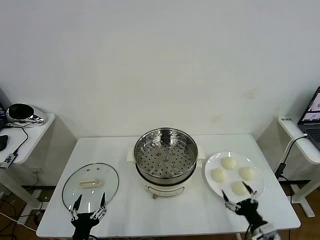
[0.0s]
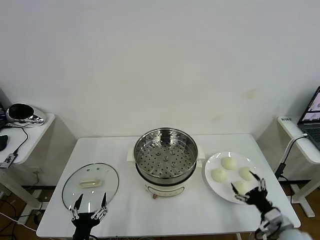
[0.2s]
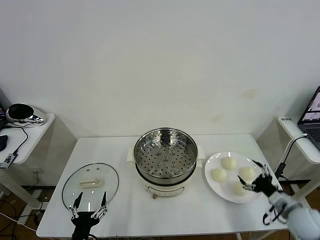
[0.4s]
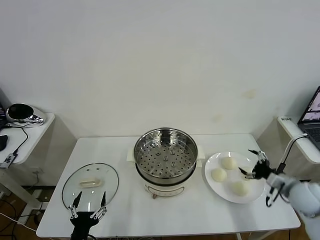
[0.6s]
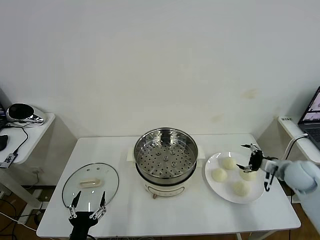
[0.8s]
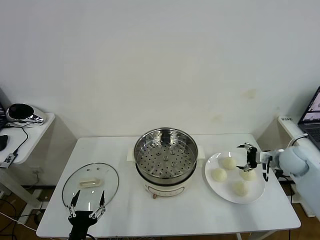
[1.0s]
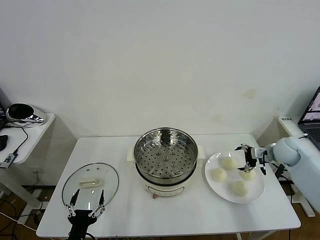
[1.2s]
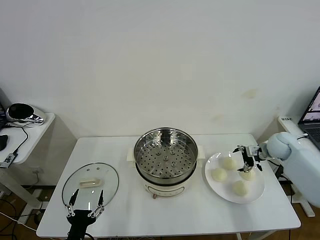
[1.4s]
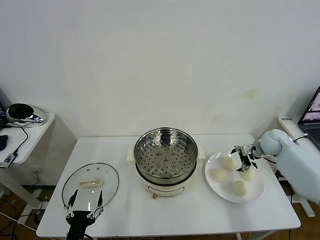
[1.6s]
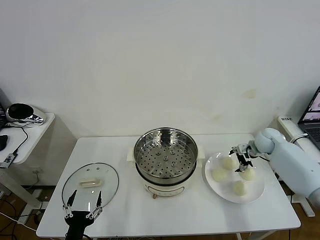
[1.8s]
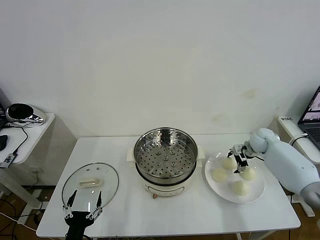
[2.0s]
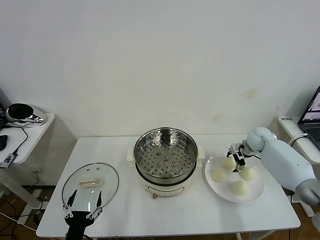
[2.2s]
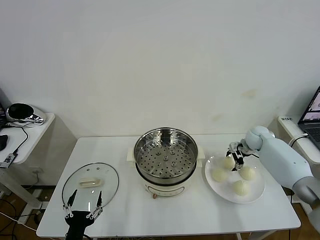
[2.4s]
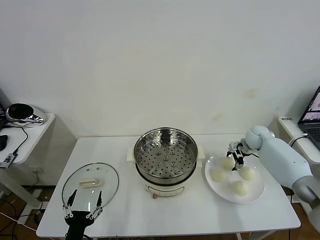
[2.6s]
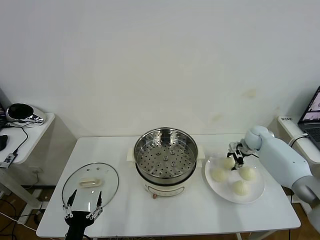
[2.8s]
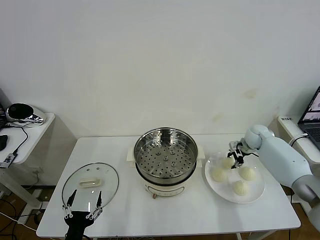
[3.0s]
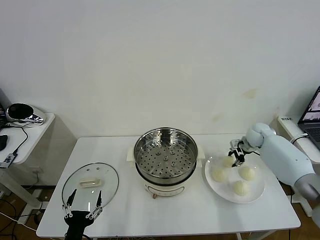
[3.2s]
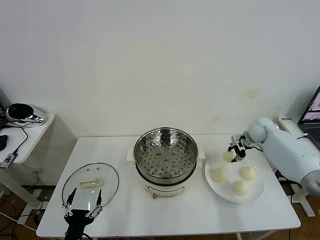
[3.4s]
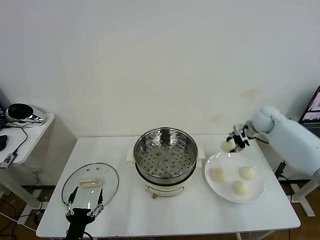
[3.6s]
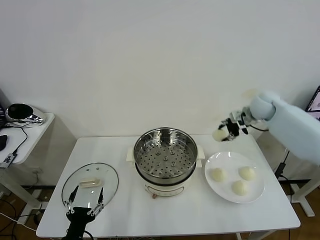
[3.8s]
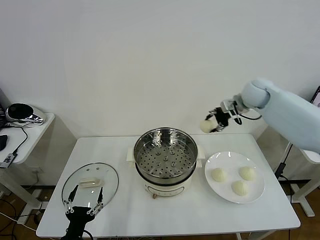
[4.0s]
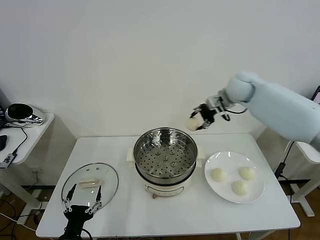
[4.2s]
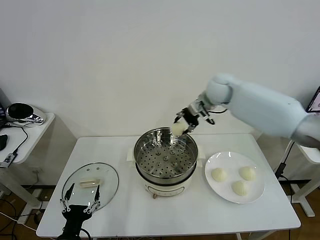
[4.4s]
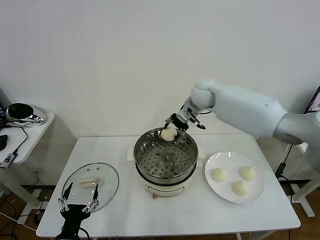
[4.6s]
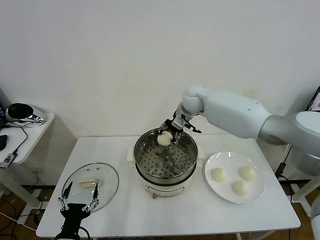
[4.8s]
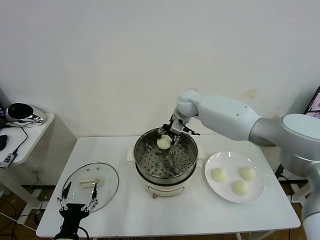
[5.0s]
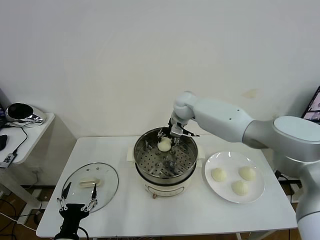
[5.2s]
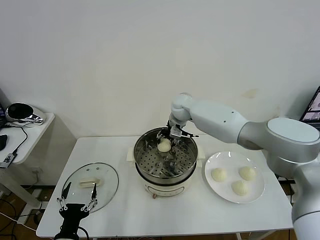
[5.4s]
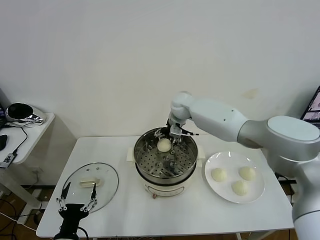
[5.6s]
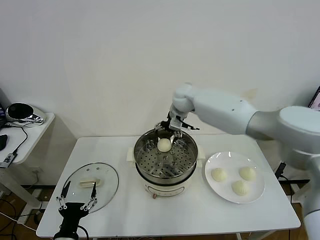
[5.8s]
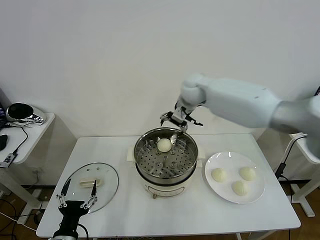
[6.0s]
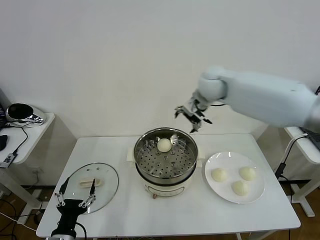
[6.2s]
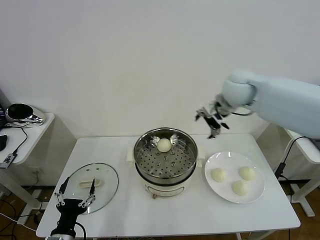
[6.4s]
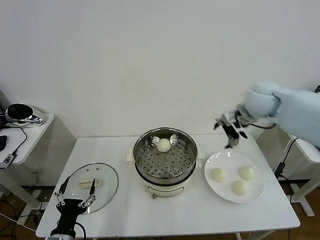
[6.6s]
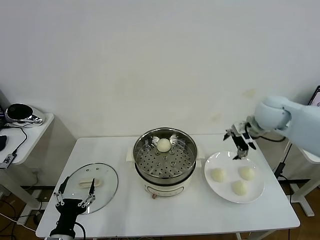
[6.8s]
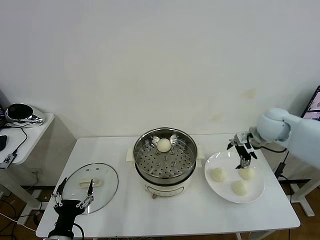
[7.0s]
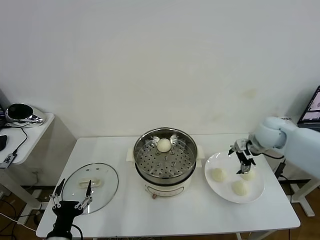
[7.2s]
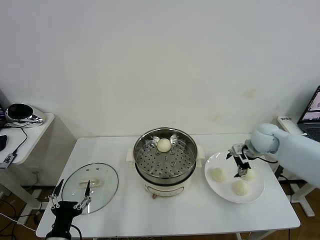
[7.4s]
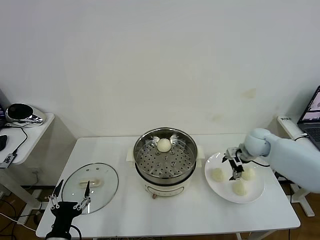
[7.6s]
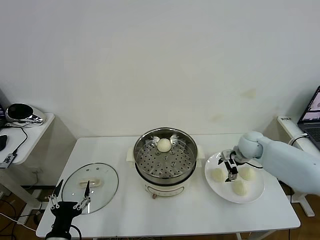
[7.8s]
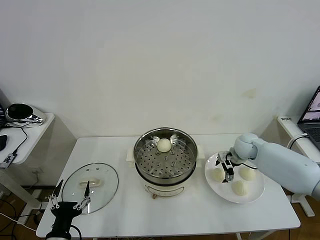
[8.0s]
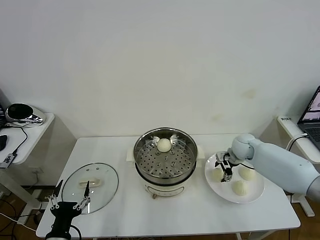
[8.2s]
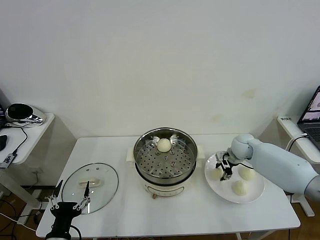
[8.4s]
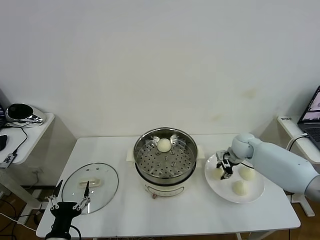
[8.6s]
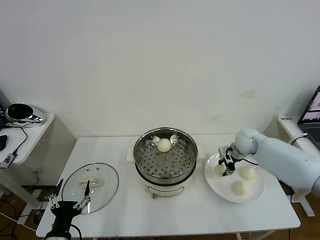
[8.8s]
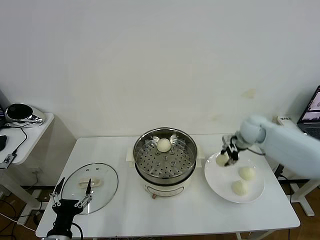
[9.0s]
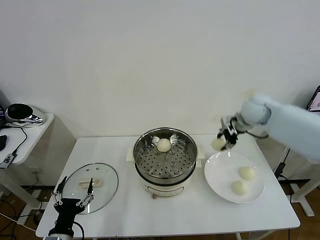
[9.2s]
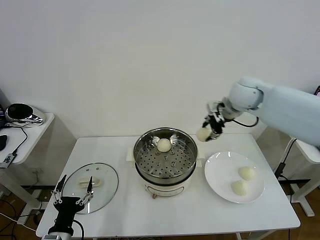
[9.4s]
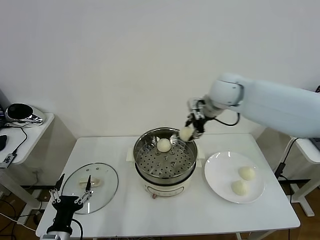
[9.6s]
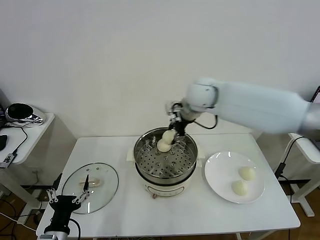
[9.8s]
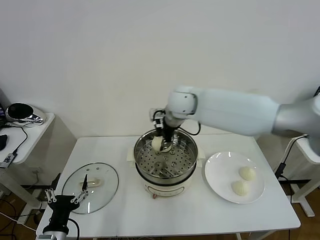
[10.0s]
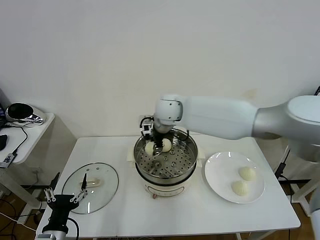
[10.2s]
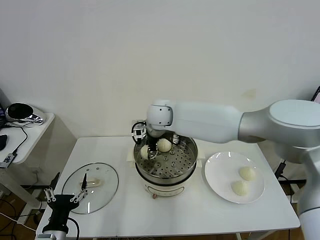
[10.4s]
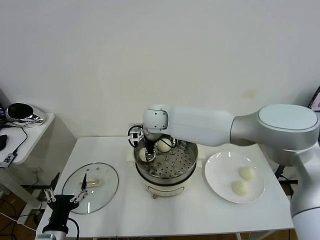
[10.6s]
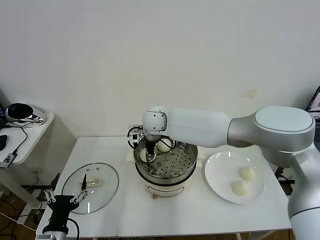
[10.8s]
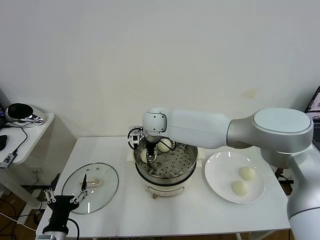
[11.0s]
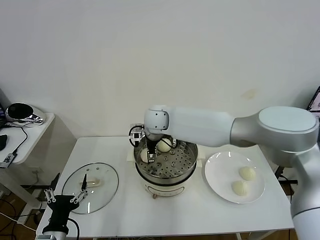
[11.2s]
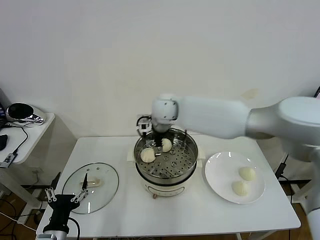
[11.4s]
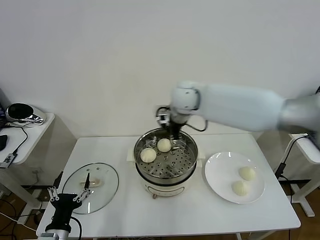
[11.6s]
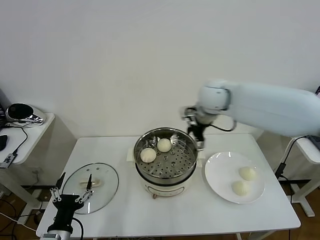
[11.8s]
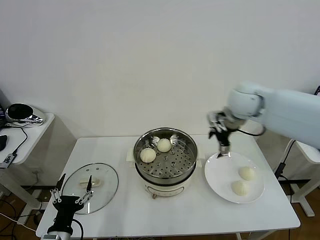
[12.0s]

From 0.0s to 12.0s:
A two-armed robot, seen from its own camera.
Task of the whole recording: take steamed baozi put them in steamer then cover it.
Step, from 0.0s to 2.8s: Grasp the baozi in the plate with right gripper.
Step, from 3.2s to 5.6s: Place the baozi on the steamer with right gripper.
Step, from 5.8s to 8.6s: Grasp the baozi in the plate with right gripper.
Step, from 8.8s to 11.2s: Place the baozi on the steamer with right gripper.
From 1.6s to 3.0s: The right gripper closes up.
From 3.0s to 4.4s: The right gripper heads to the left and upward, covering about 30 cm.
From 4.4s to 6.0s: The right gripper moves some 10 cm downward and comes back, and opens up.
From 6.0s to 7.6s: The right gripper travels downward and to the right by about 30 cm.
From 7.6s to 9.0s: The right gripper goes approximately 10 cm upward, and closes up.
From 9.0s to 10.4s: The right gripper moves to the left, some 35 cm.
From 10.4s to 12.0s: The right gripper moves to the right, approximately 25 cm, and opens up.

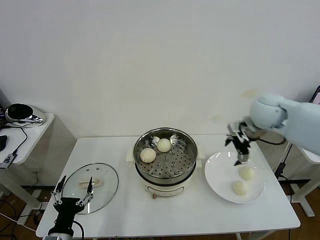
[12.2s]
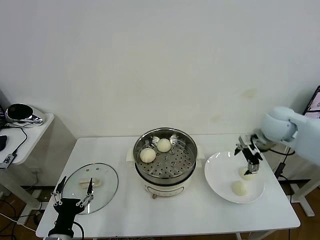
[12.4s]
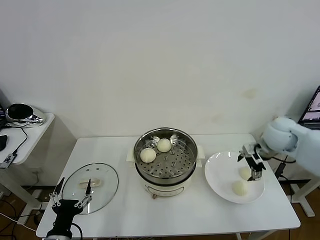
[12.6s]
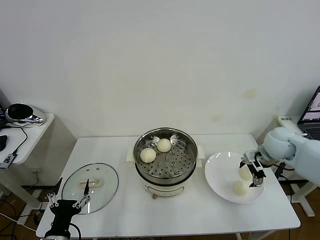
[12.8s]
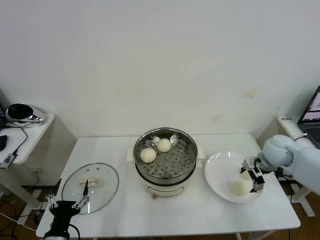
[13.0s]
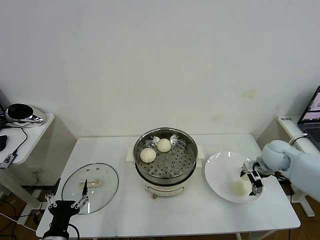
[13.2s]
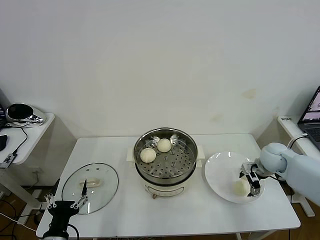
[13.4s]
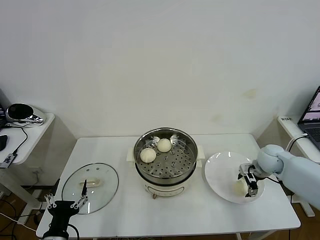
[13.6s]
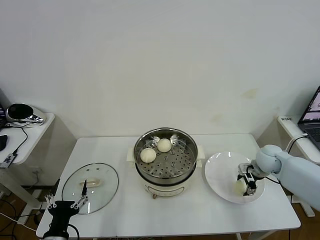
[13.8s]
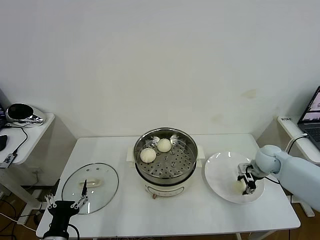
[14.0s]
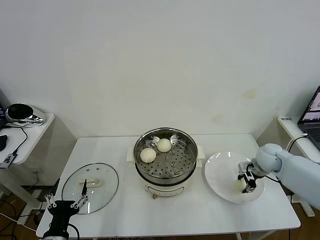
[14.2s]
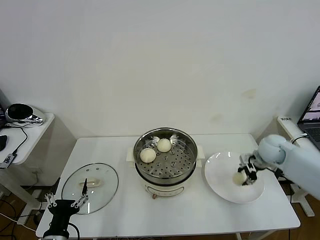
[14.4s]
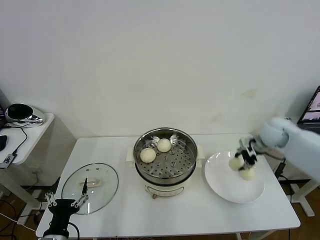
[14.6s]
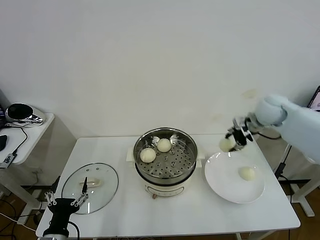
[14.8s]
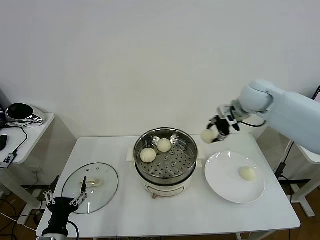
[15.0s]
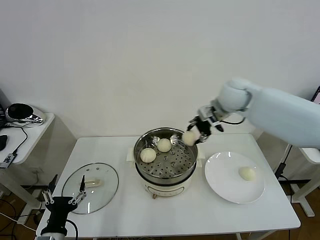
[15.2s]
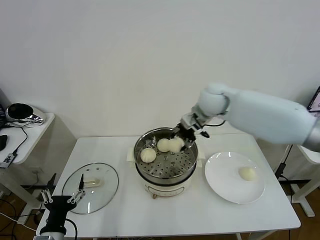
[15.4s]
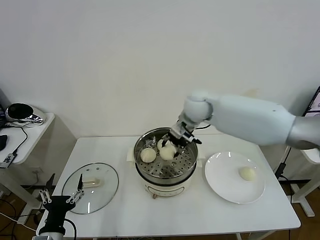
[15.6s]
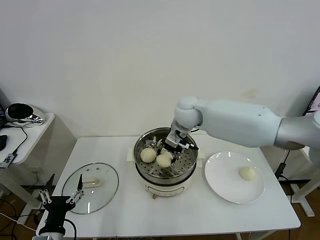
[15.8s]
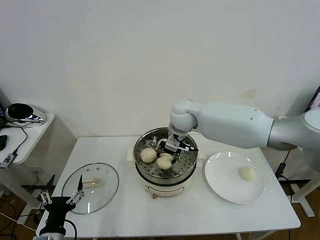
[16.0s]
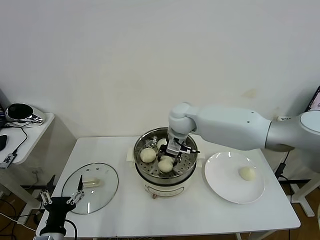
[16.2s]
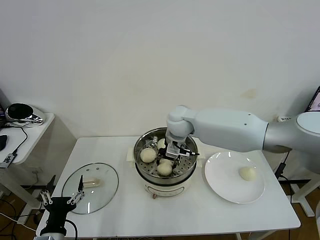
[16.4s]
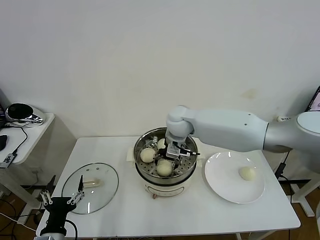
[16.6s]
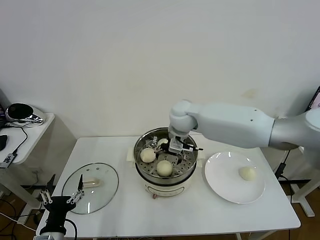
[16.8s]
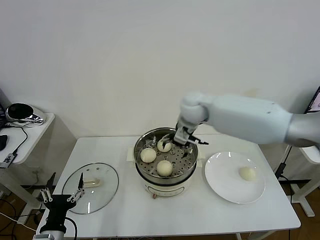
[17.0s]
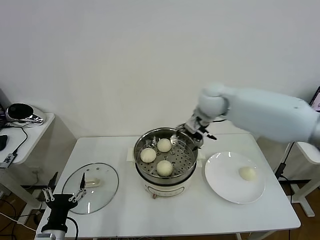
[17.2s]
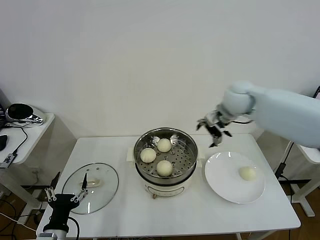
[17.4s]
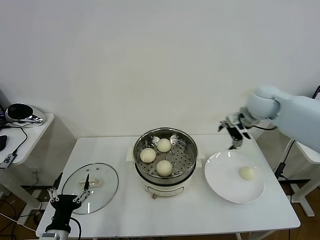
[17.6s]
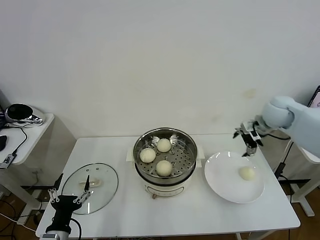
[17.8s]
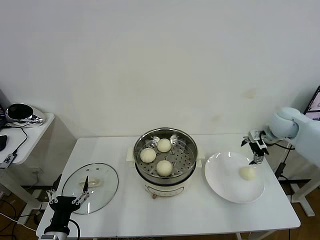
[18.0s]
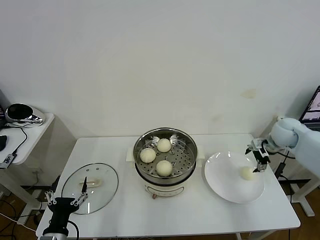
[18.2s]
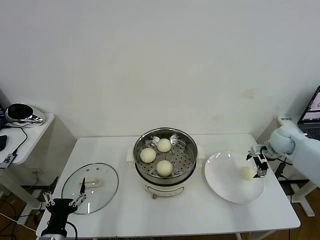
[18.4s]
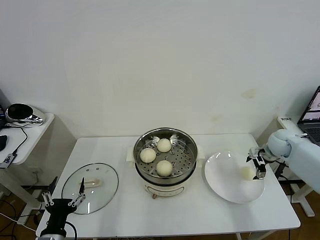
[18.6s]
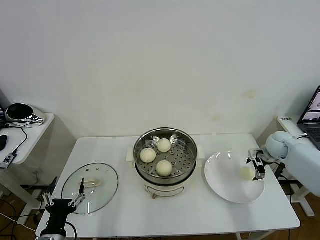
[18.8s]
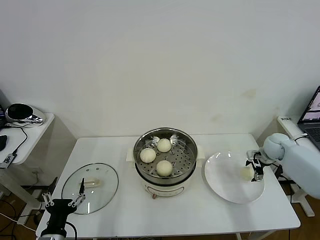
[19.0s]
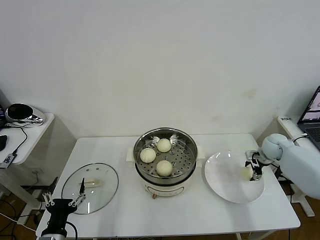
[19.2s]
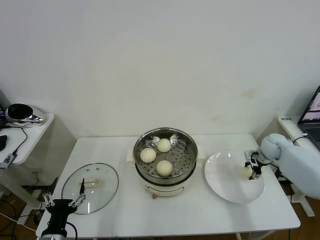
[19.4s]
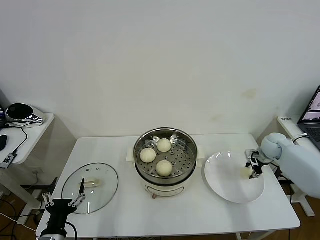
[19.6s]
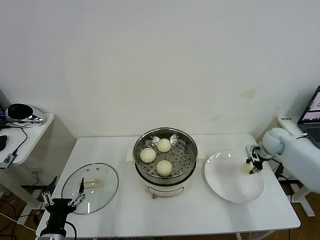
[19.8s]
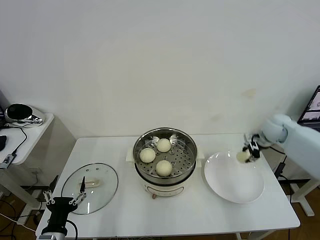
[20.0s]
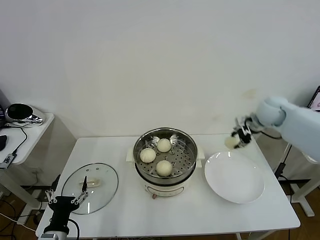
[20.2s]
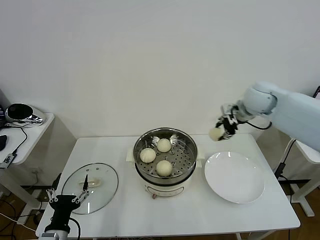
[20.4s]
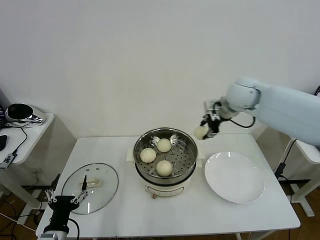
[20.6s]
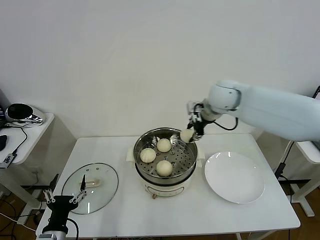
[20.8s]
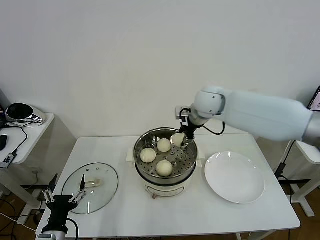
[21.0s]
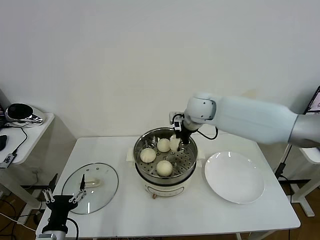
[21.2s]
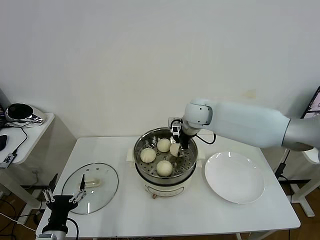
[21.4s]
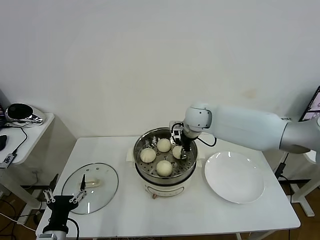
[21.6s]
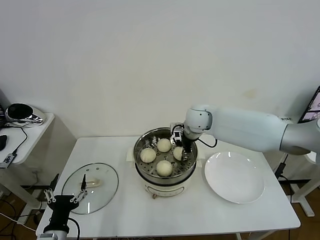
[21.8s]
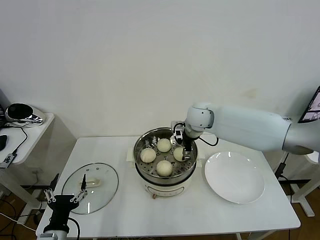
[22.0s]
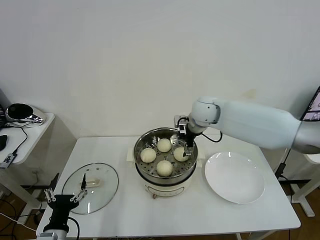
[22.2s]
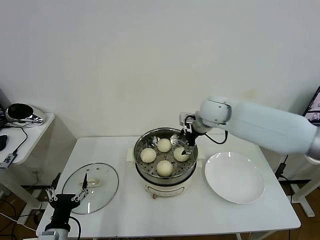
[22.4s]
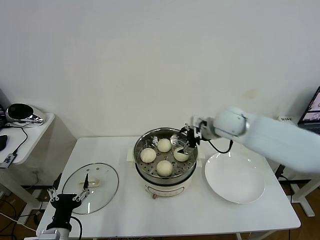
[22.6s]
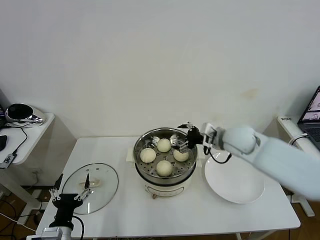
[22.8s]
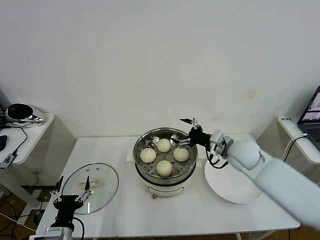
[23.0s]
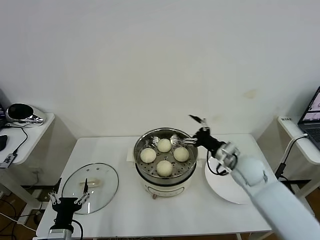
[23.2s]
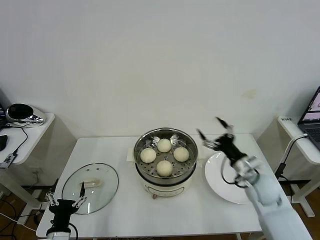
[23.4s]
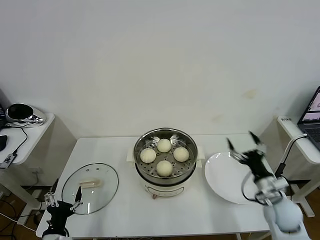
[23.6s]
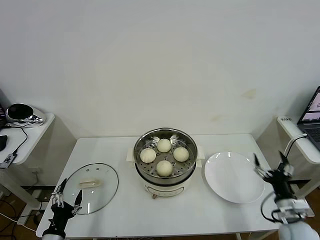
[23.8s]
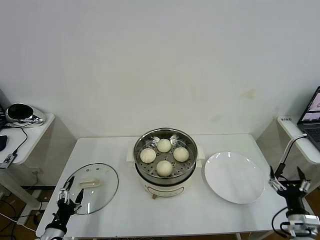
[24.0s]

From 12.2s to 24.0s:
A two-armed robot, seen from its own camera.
Task of the whole recording: take steamed baozi put them in steamer then cover it.
Step, from 12.2s to 14.2s: Grasp the baozi in the plate with right gripper.
Step, from 14.4s to 16.8s: Place the baozi on the steamer with right gripper.
Step, from 17.0s to 19.4s: Grasp the baozi in the plate with right gripper.
Step, from 19.6s to 22.0s: Place the baozi on the steamer with right gripper.
From 12.2s to 13.6s: The right gripper goes roughly 20 cm downward and to the right.
From 13.6s to 15.2s: The right gripper shifts about 30 cm upward and to the left, and closes its fingers.
From 15.2s to 16.6s: The right gripper moves to the left and downward, roughly 15 cm, and opens.
From 16.6s to 18.2s: The right gripper is displaced to the right by approximately 35 cm.
From 18.2s to 19.6s: The right gripper shifts roughly 10 cm downward, and closes.
From 19.6s to 21.0s: The right gripper shifts about 35 cm to the left and upward.
From 21.0s to 22.6s: The right gripper moves to the right, roughly 5 cm, and opens.
From 22.6s to 24.0s: The left gripper goes roughly 10 cm to the left and downward. Meanwhile the right gripper travels backward, downward and to the right by roughly 40 cm.
